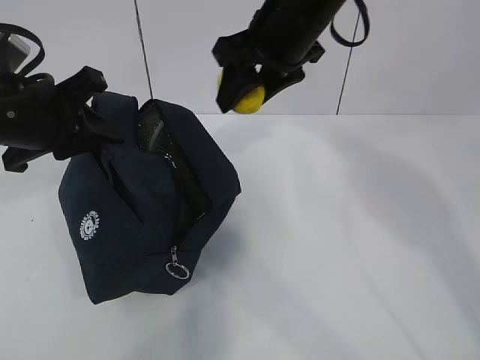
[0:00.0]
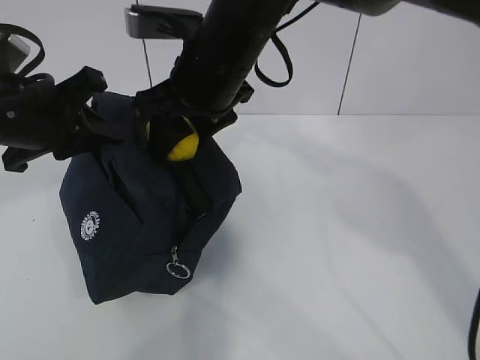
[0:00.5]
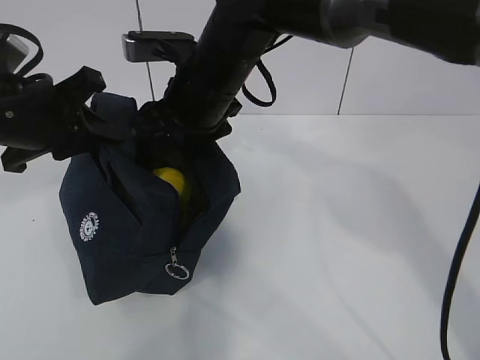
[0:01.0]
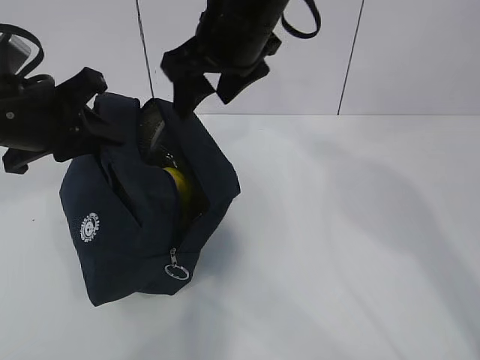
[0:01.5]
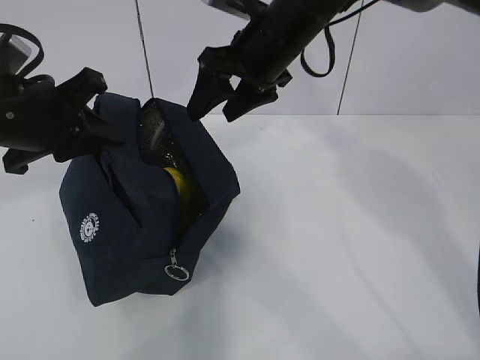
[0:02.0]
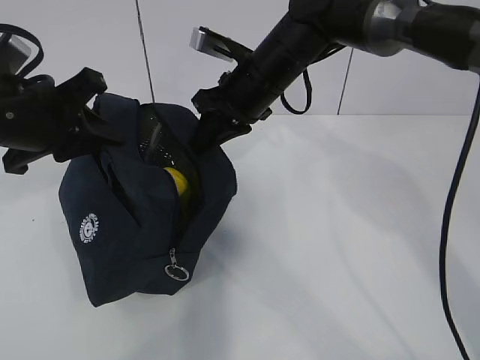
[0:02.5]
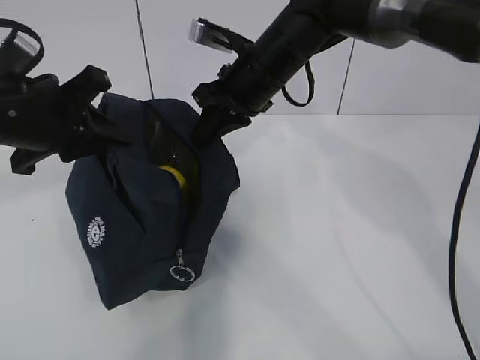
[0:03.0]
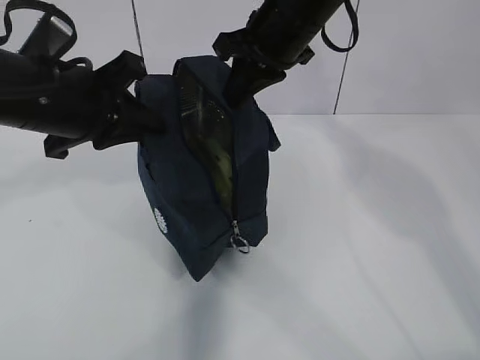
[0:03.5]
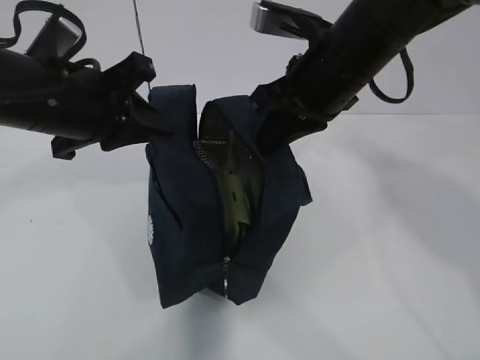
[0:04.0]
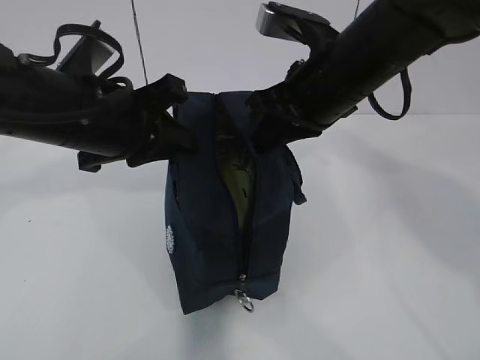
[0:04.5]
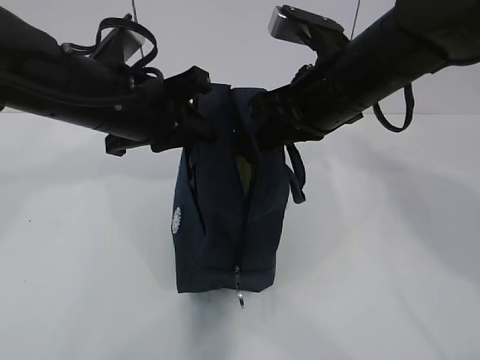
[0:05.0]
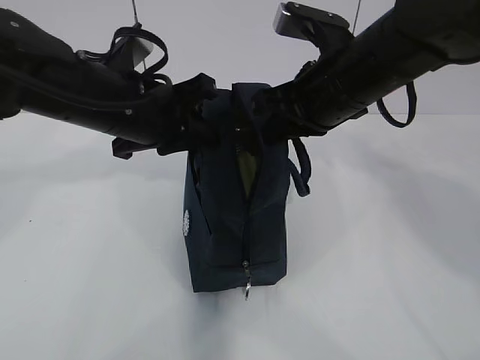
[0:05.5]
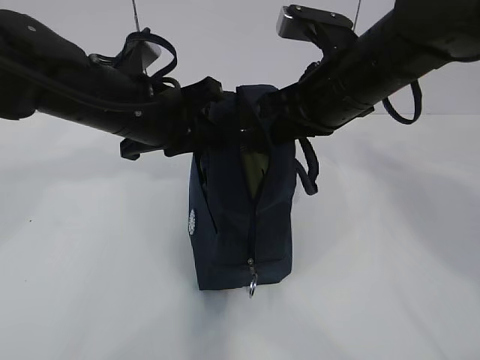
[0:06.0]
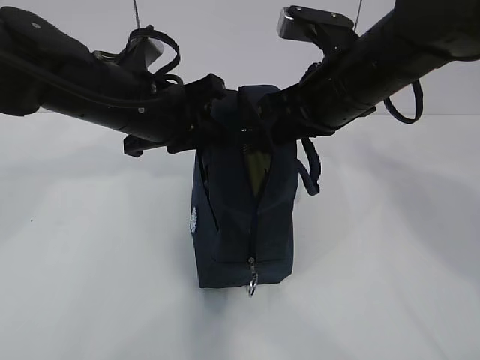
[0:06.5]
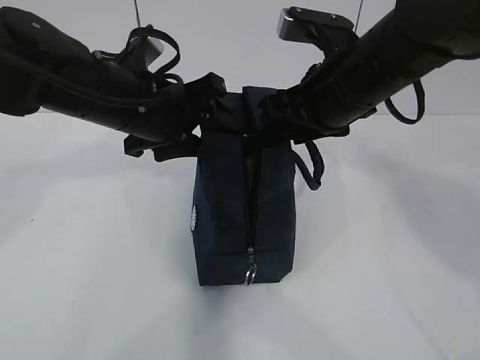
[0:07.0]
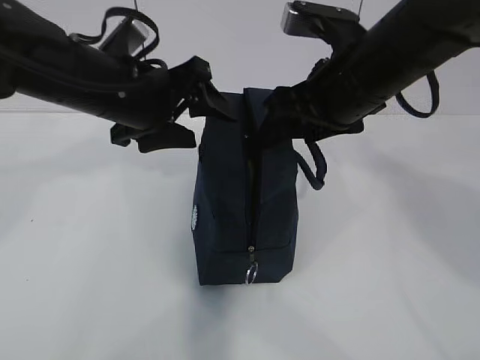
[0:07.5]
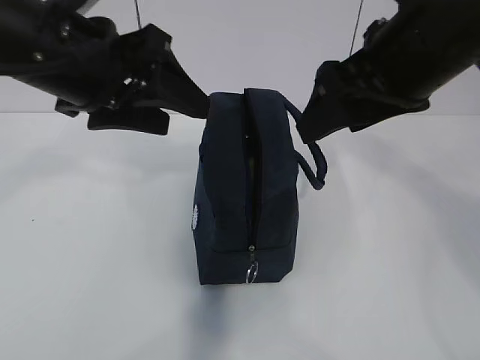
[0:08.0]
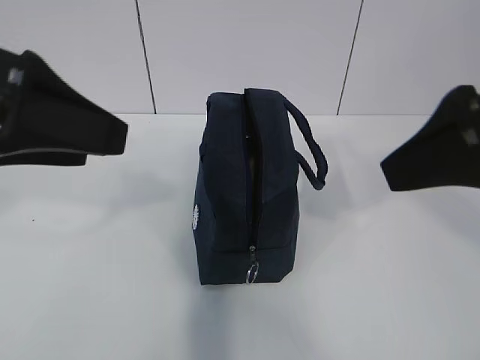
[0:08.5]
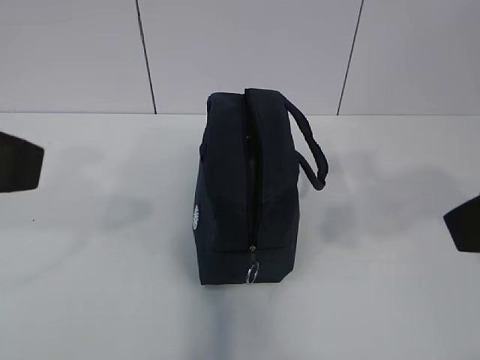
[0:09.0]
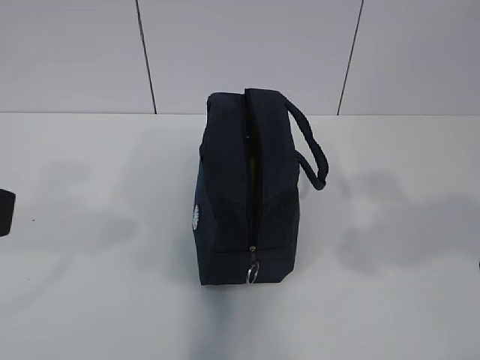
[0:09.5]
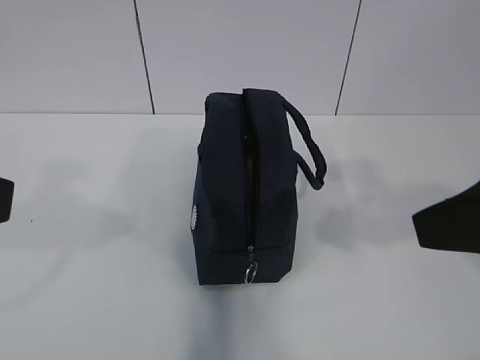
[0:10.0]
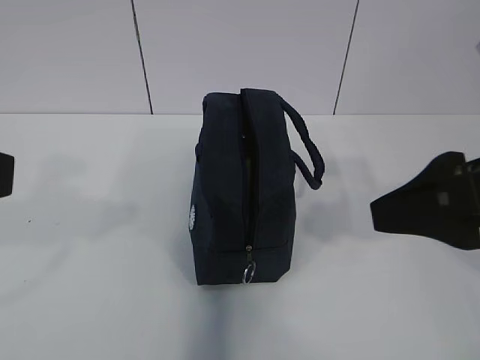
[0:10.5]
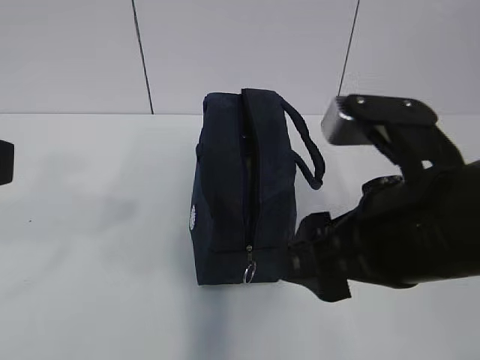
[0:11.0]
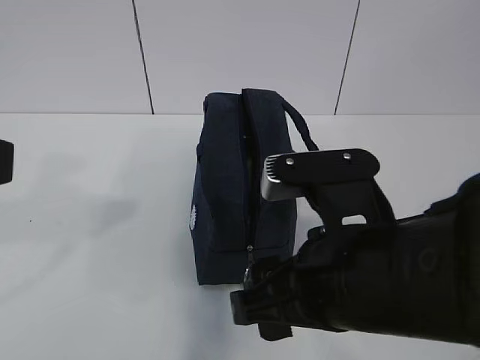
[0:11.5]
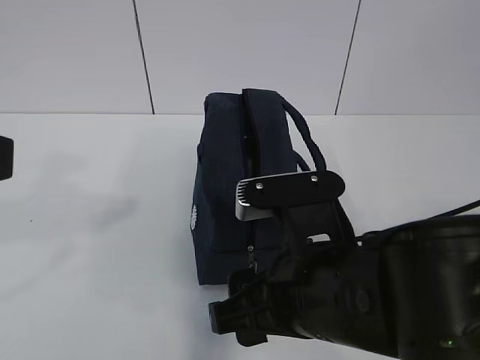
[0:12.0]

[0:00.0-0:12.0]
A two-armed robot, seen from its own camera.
0:00.0 to 0:02.0: The right gripper travels to the left and back again, about 10 cm each way.
0:02.0 to 0:04.0: The left gripper moves to the right, roughly 5 cm. Meanwhile the right gripper goes some 10 cm backward, and closes.
0:04.0 to 0:06.0: The left gripper shifts roughly 5 cm to the right.
0:06.0 to 0:08.0: The two grippers go approximately 10 cm upward and backward. The left gripper opens up; the right gripper opens its fingers.
0:08.0 to 0:10.0: The left gripper goes approximately 20 cm backward and to the left; the right gripper shifts approximately 15 cm backward.
0:10.0 to 0:12.0: The right gripper travels to the left and downward by approximately 20 cm.

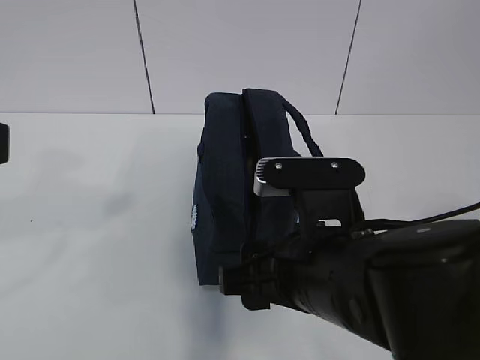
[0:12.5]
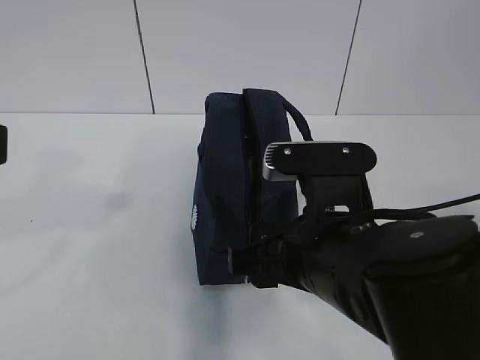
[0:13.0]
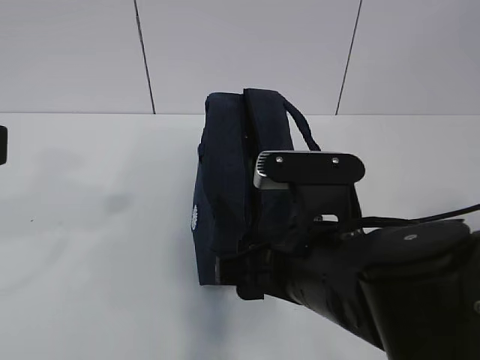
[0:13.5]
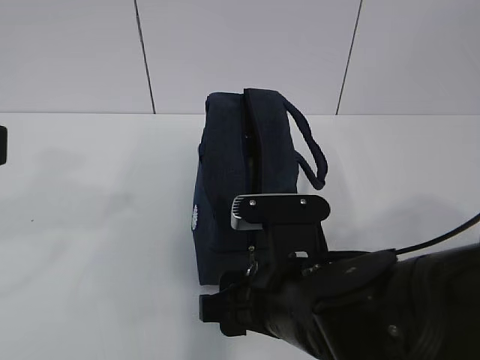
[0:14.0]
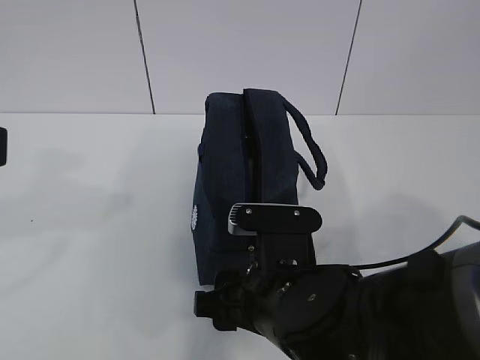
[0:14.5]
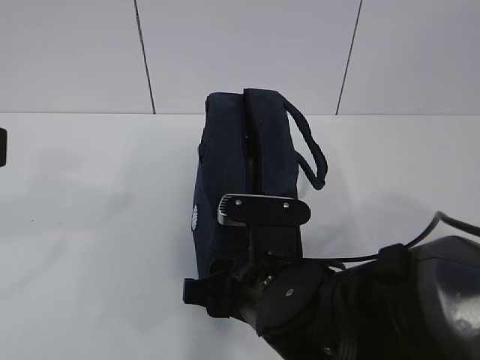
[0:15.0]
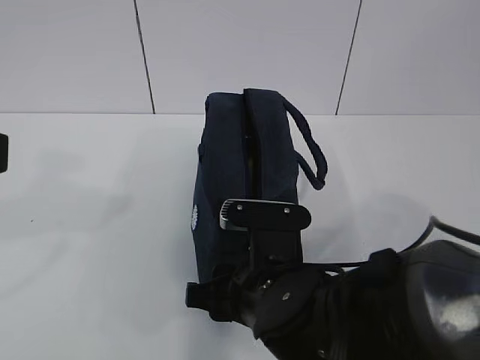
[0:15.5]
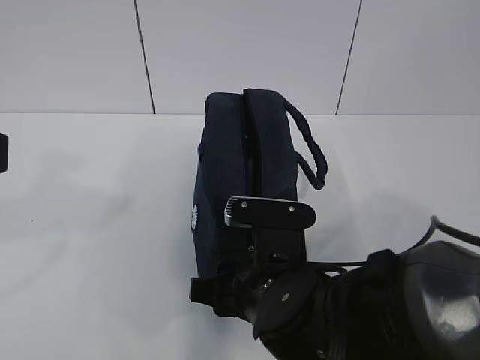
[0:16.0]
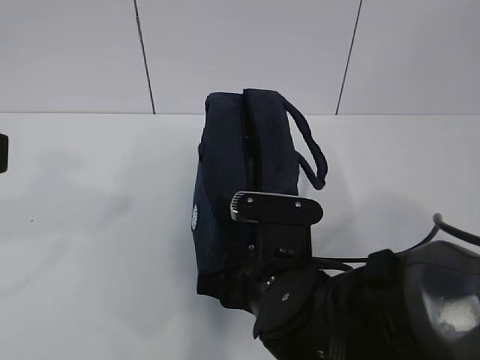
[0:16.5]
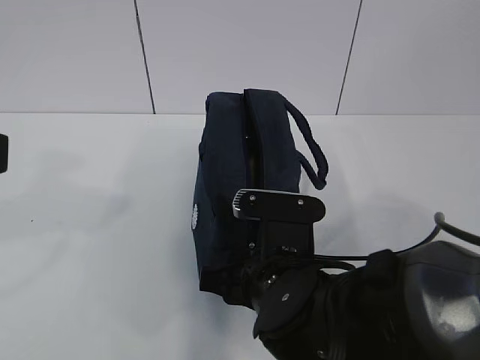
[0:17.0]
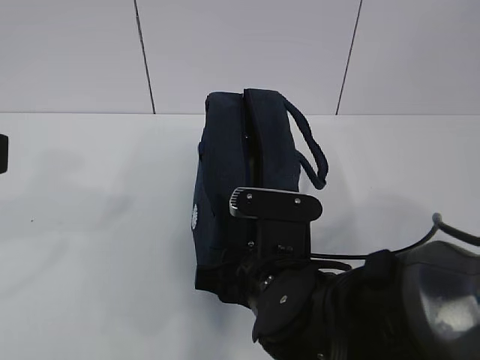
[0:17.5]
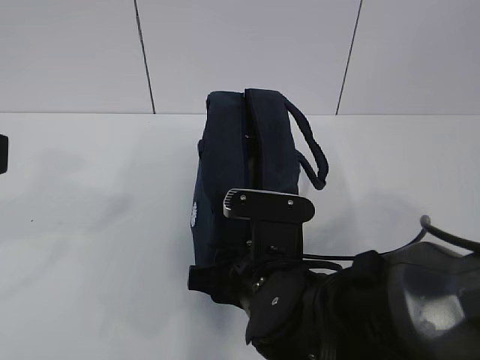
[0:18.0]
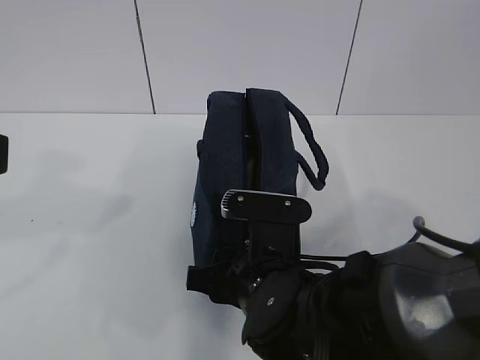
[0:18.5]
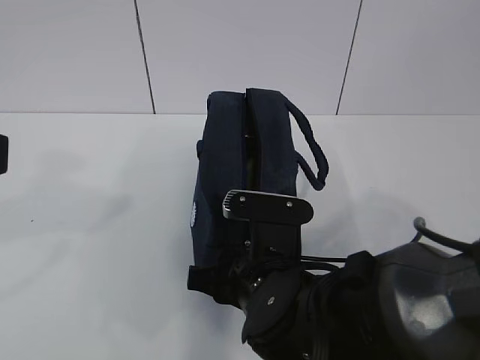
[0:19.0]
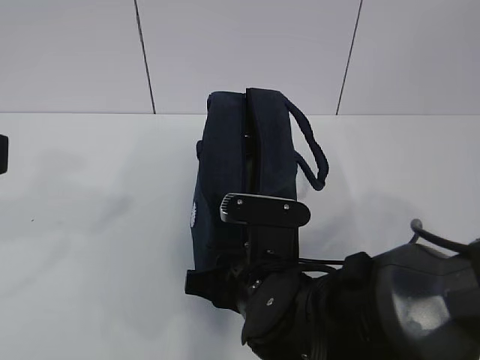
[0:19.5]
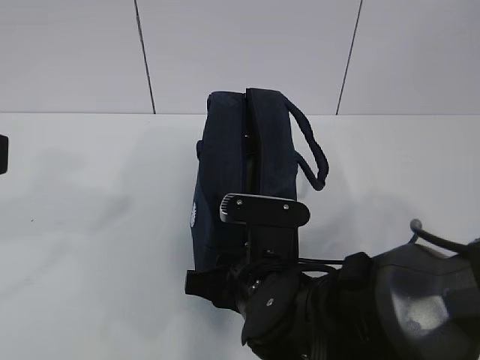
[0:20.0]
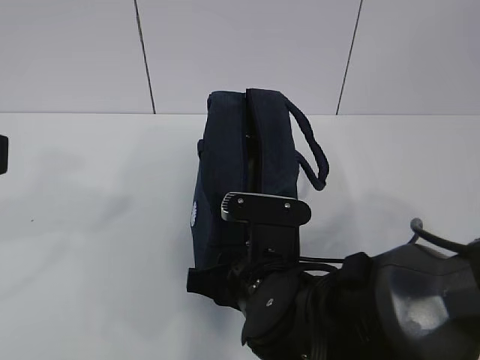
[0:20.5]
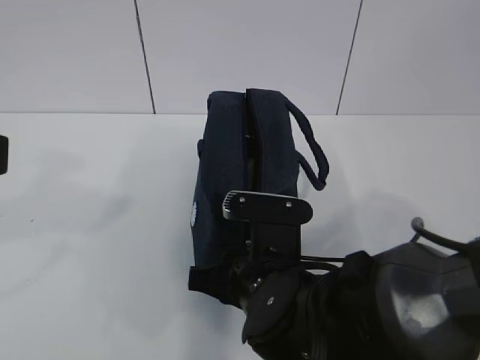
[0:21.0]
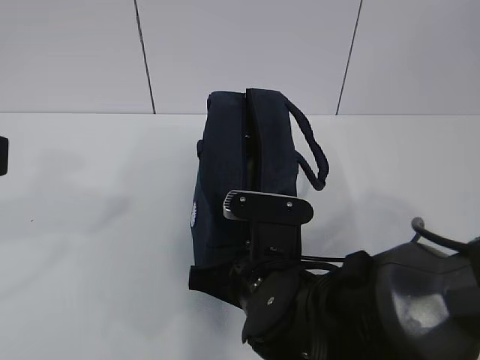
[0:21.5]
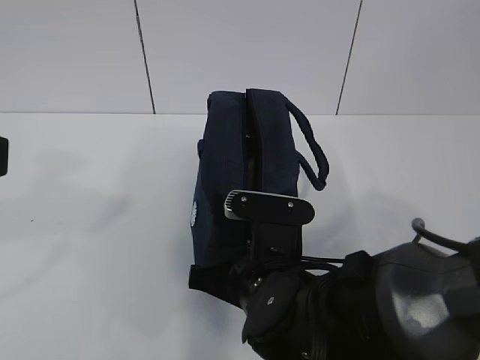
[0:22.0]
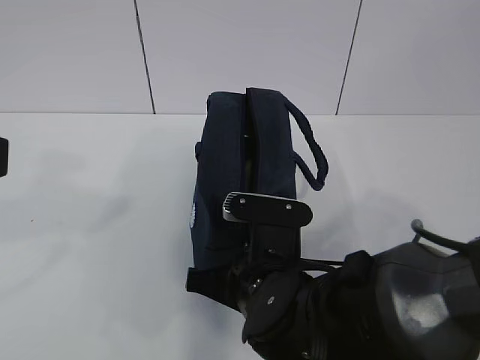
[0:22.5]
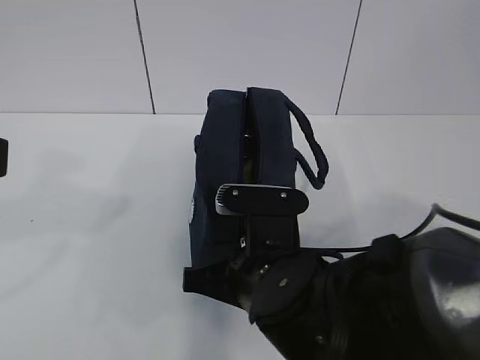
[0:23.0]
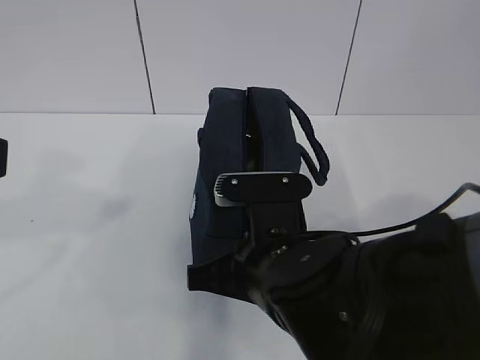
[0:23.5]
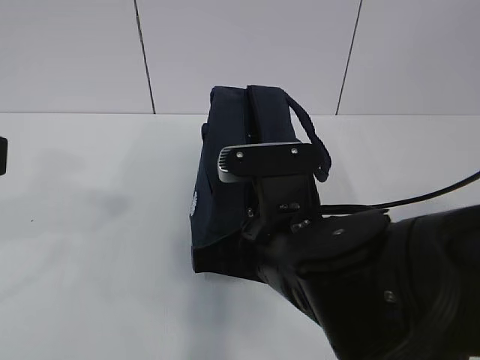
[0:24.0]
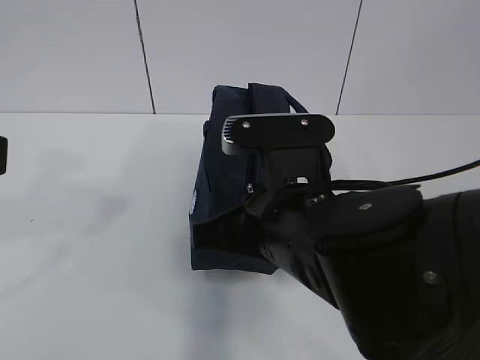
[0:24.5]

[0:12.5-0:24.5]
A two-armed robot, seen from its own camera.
0:12.5 to 0:14.5: The right gripper goes about 5 cm downward.
0:14.5 to 0:16.5: The grippers make only small movements.
0:16.5 to 0:20.5: Both grippers stay put.
0:20.5 to 0:22.5: The right gripper closes up.
0:22.5 to 0:24.5: The right gripper is displaced upward by approximately 10 cm.

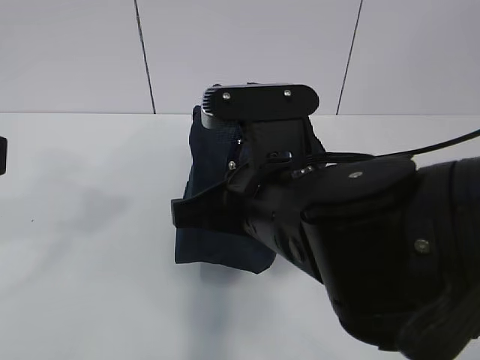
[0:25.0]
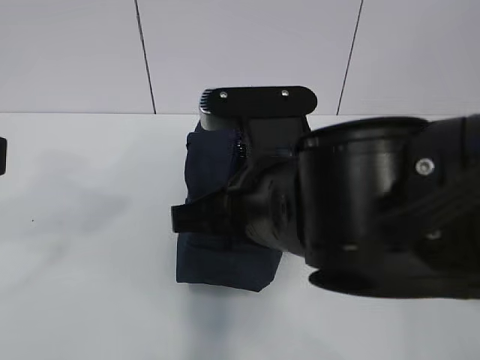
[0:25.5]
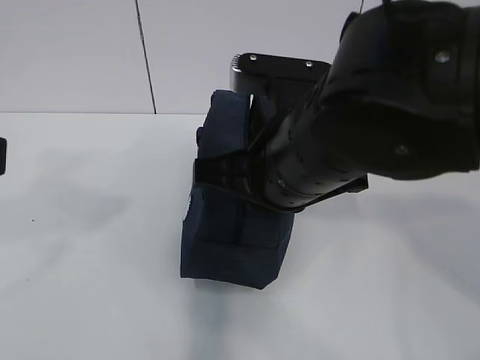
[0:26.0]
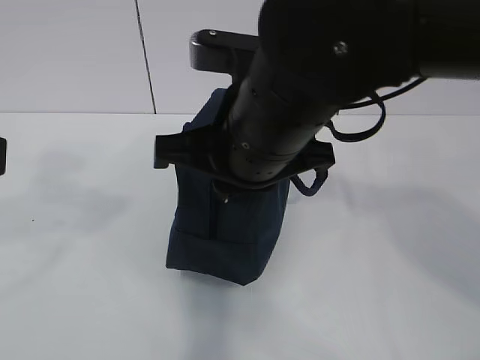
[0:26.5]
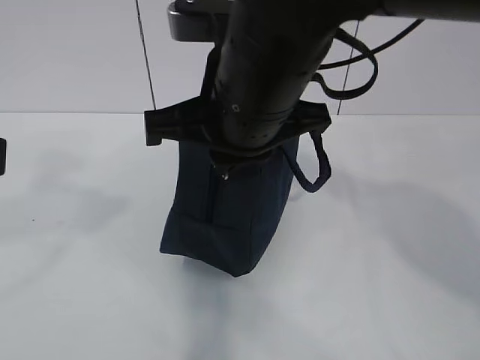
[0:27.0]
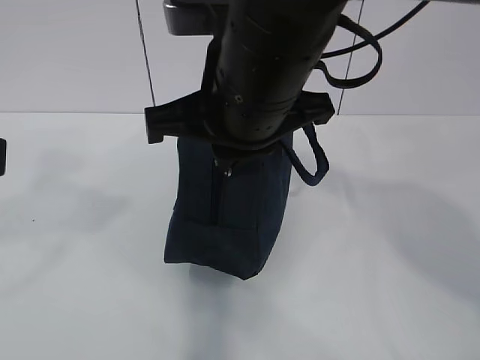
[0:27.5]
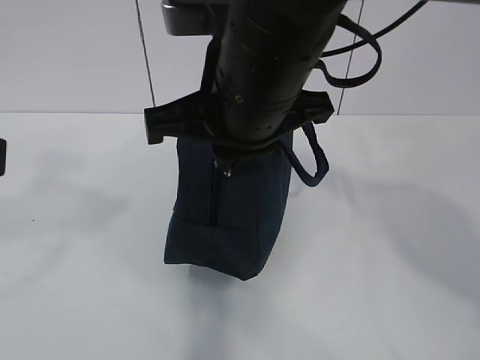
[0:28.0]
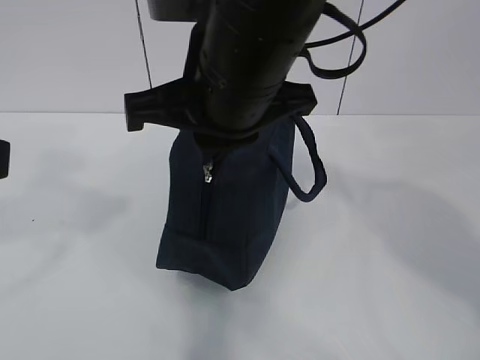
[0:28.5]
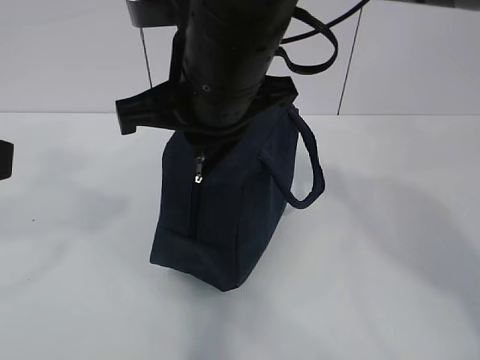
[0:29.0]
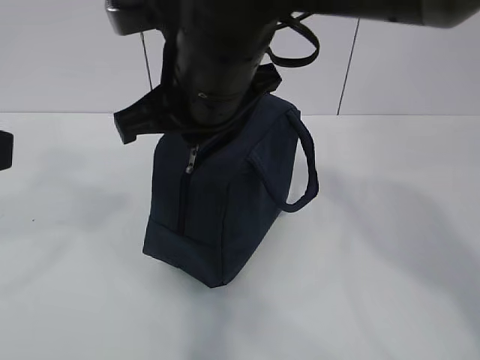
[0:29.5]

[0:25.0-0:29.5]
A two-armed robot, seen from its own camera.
0:25.0 to 0:27.0: The right gripper moves upward, roughly 10 cm.
0:27.0 to 0:29.5: The grippers stay close to where they were, moving slightly.
